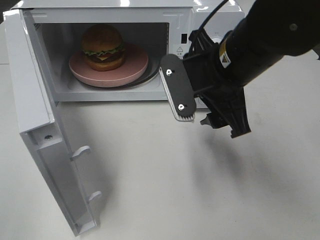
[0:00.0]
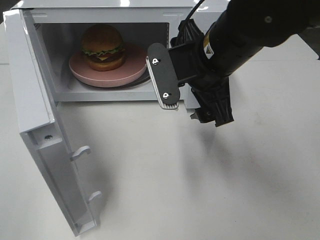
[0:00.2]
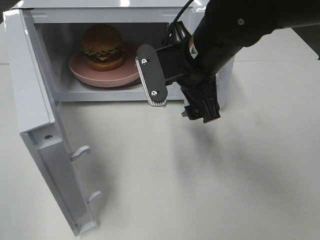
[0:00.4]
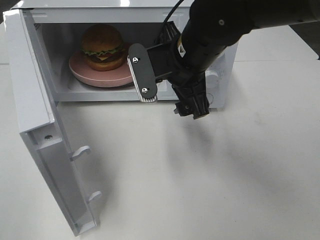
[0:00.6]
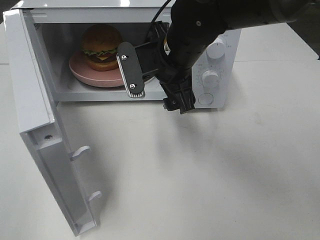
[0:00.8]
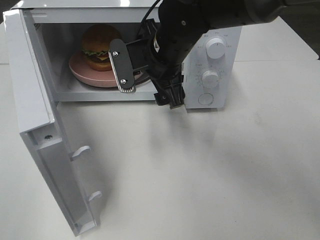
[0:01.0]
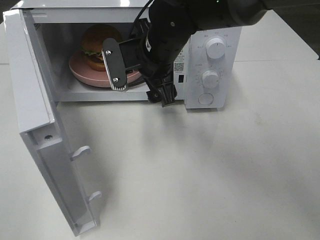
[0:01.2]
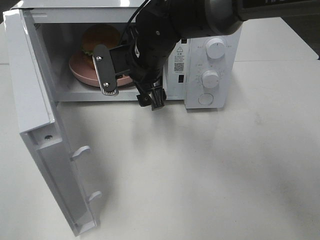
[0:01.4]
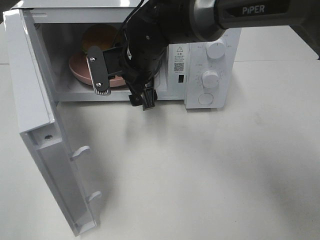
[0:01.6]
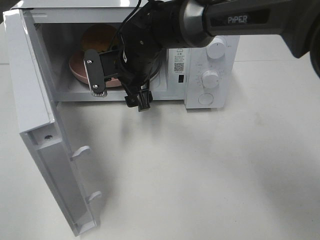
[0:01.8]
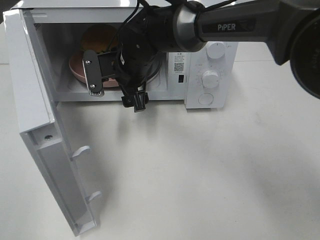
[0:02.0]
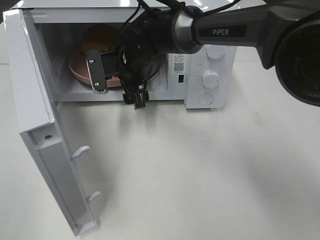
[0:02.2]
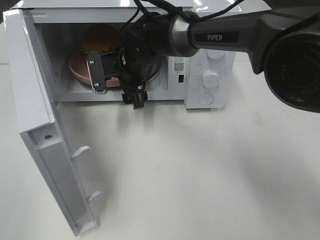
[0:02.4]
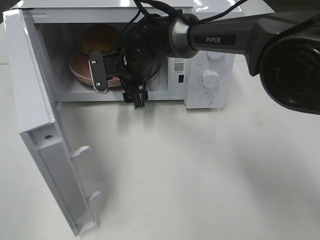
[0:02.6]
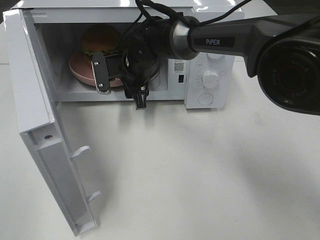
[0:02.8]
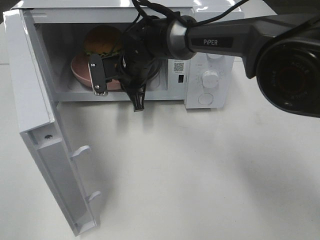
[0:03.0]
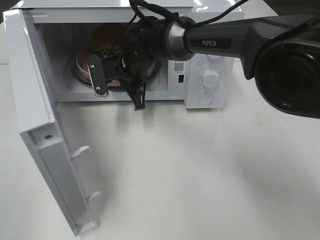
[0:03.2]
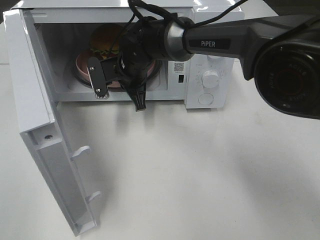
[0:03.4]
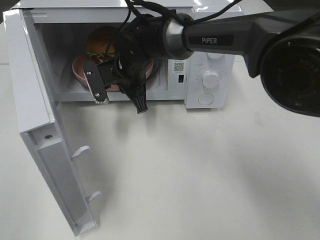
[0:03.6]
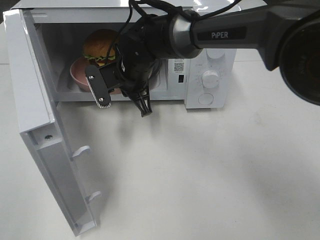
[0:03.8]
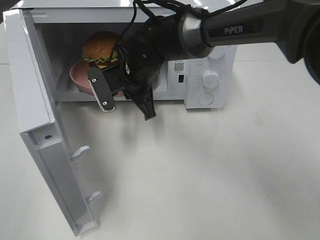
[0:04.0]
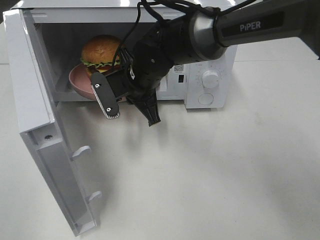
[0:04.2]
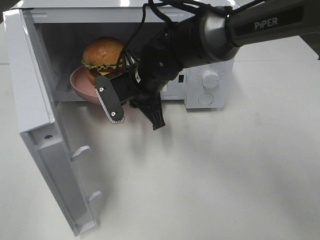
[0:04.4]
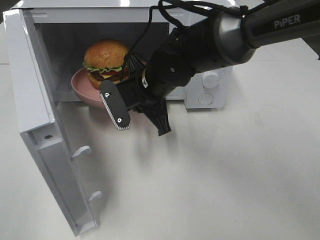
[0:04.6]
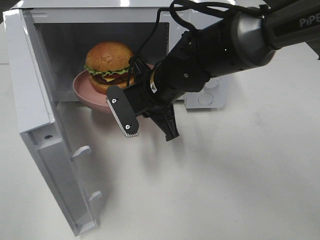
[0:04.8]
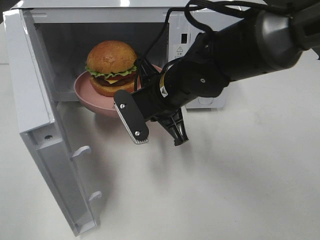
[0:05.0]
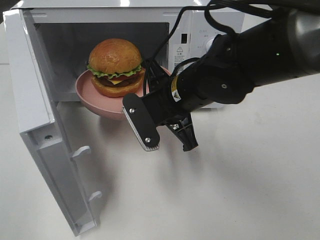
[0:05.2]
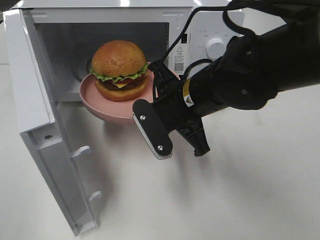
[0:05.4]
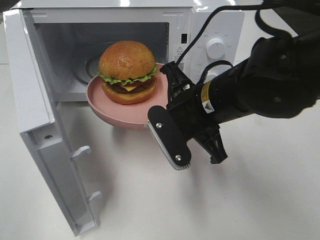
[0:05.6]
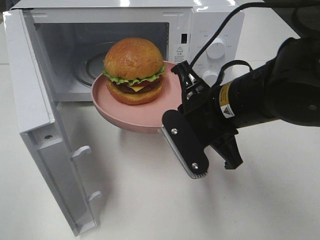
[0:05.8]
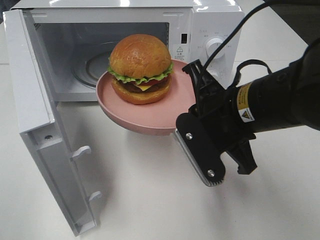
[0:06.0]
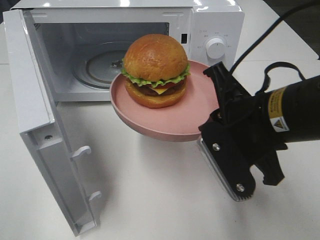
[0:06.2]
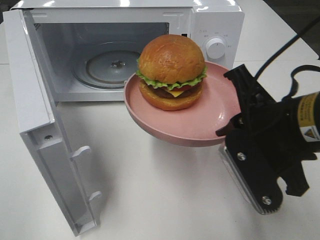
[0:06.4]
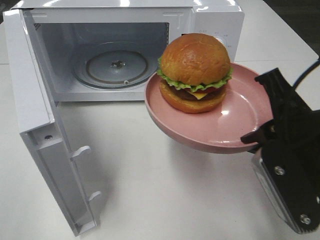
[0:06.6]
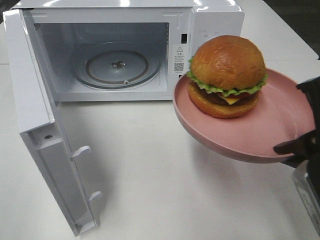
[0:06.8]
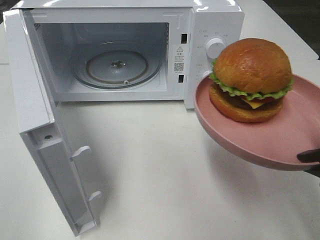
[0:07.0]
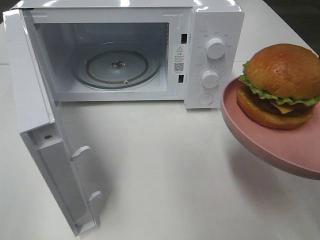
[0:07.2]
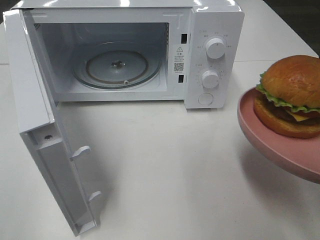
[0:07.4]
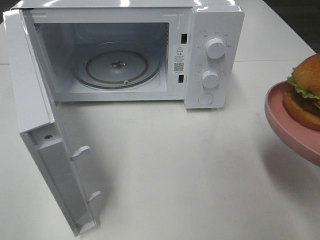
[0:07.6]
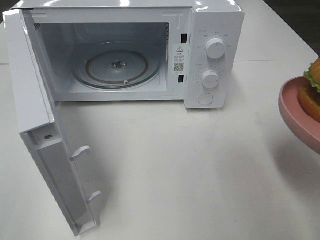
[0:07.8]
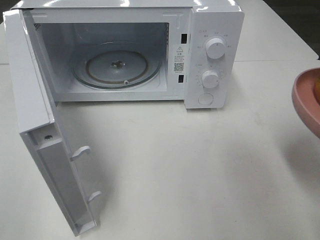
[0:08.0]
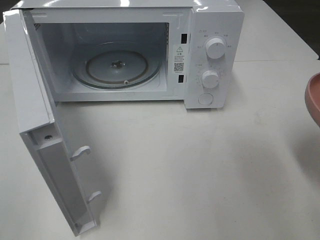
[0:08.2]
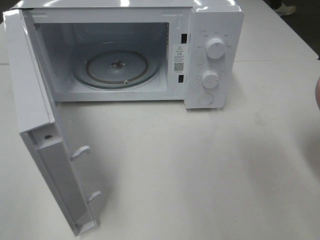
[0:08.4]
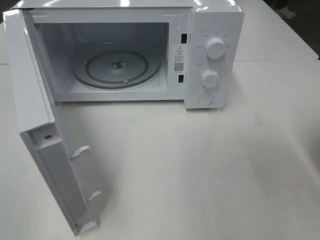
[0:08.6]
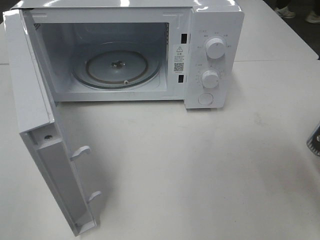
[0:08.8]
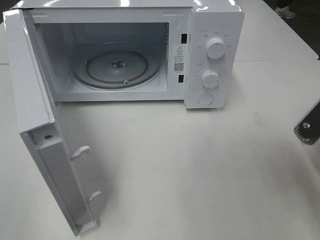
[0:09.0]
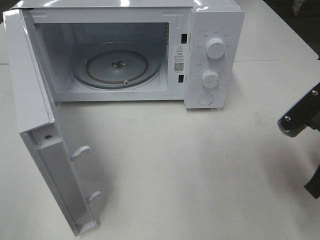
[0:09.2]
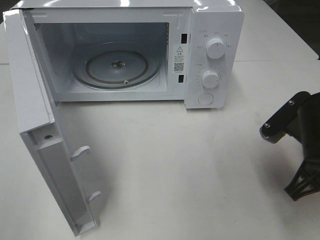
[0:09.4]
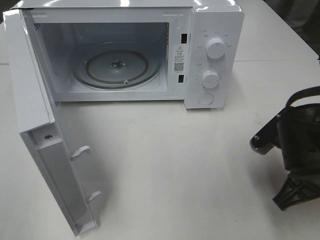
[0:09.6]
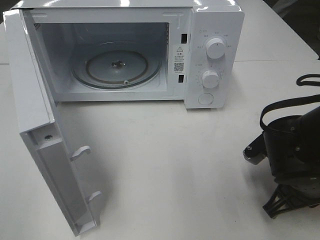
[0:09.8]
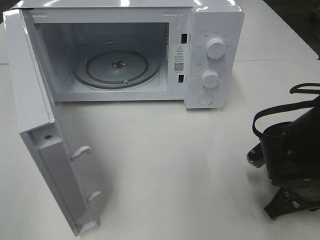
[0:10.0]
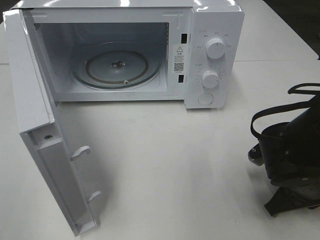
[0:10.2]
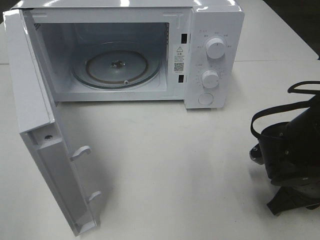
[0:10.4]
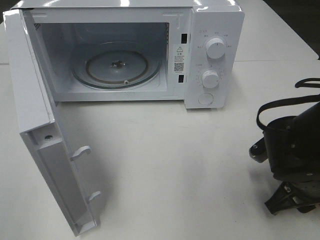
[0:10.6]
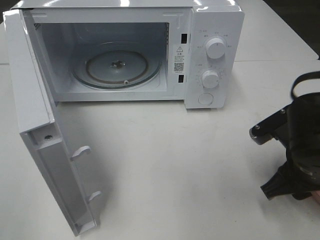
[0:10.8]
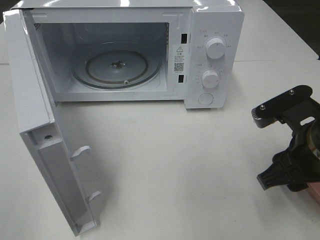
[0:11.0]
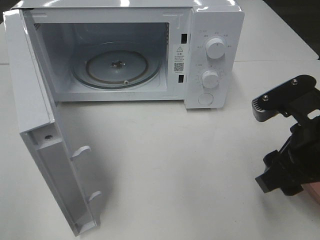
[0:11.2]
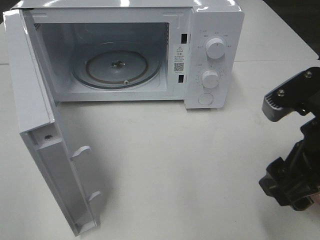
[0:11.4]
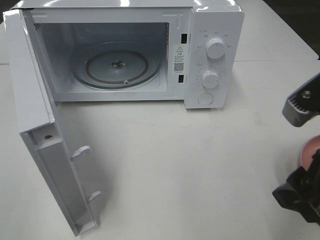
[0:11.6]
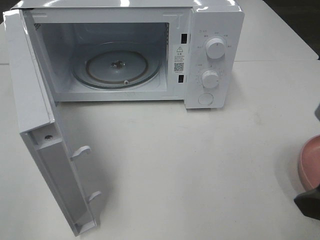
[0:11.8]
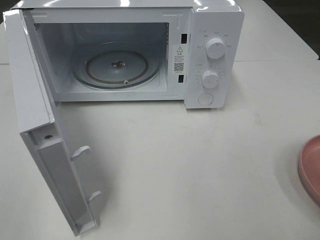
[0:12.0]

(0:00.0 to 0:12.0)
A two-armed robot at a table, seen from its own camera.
Task of the whole recording: Heat the burger.
Step, 0:00.0 - 0:03.0: Right hand: grab the plate with the hamburger.
Step, 0:03.2 - 0:10.6: Right hand: place the plate on the table.
0:00.0 - 0:01.6: The right gripper moves forward, to the left and downward, approximately 20 cm.
0:01.6 - 0:03.0: The right gripper shifts by about 5 cm, and closes its fingers.
0:03.0 - 0:04.4: The right gripper shifts about 5 cm backward.
0:04.4 - 0:06.0: The right gripper goes about 20 cm backward and to the right.
0:06.0 - 0:07.6: The right gripper moves to the right and backward, approximately 20 cm.
0:07.6 - 0:09.0: The right gripper shifts roughly 5 cm forward.
0:09.0 - 0:10.4: The right gripper heads downward, covering about 10 cm.
0:10.4 - 0:12.0: The right gripper moves upward and backward, about 20 cm, and opens up.

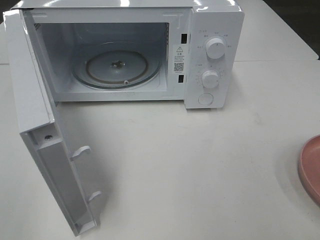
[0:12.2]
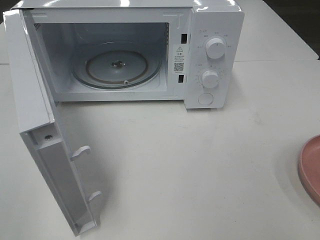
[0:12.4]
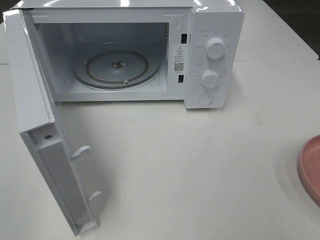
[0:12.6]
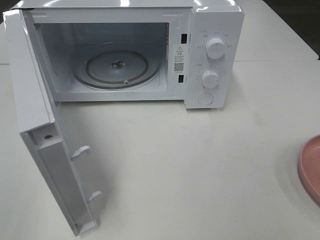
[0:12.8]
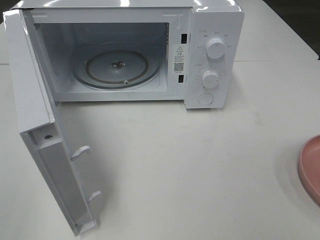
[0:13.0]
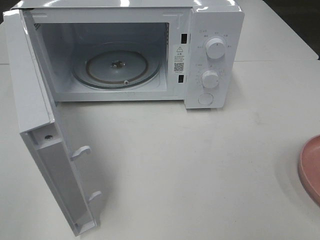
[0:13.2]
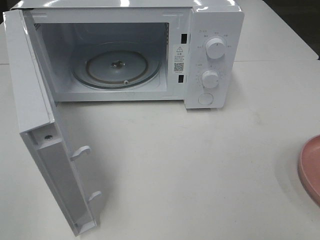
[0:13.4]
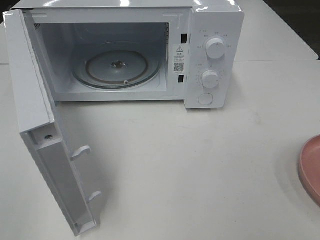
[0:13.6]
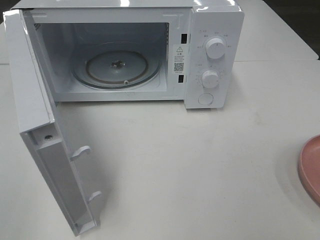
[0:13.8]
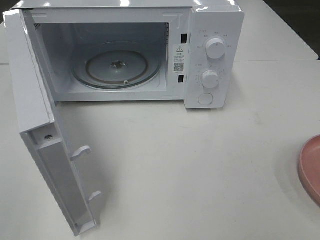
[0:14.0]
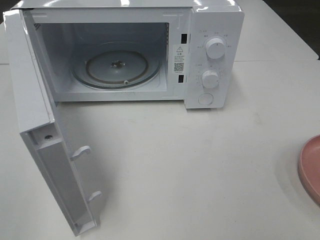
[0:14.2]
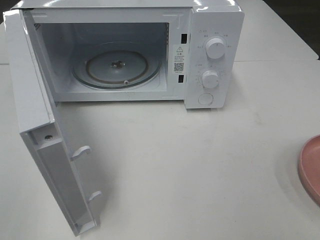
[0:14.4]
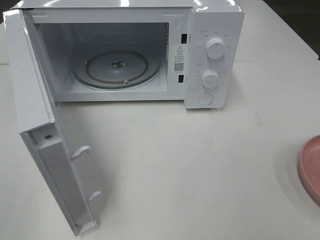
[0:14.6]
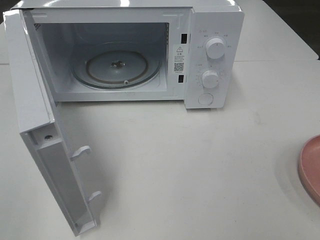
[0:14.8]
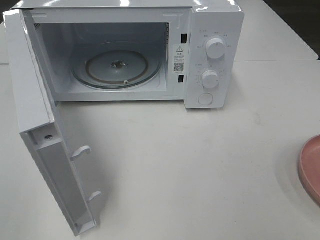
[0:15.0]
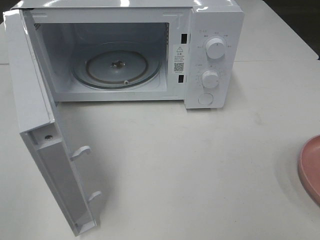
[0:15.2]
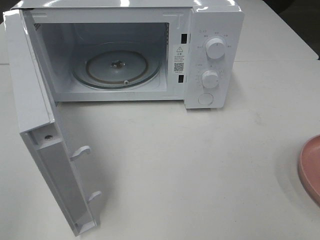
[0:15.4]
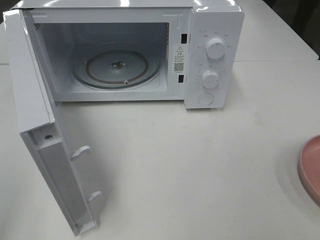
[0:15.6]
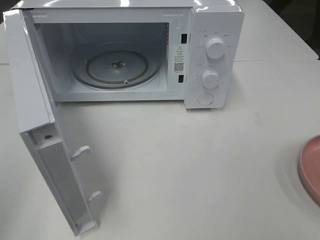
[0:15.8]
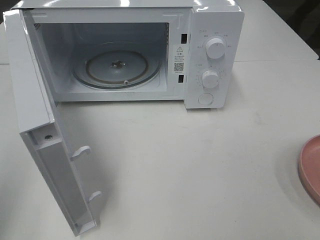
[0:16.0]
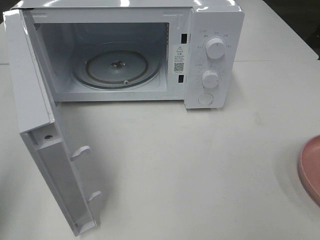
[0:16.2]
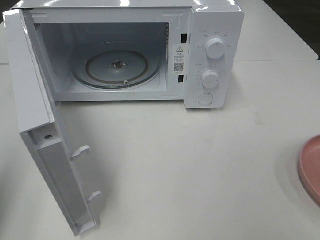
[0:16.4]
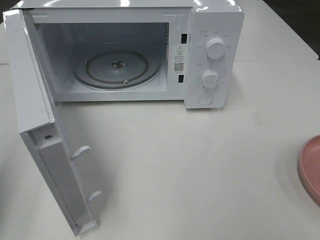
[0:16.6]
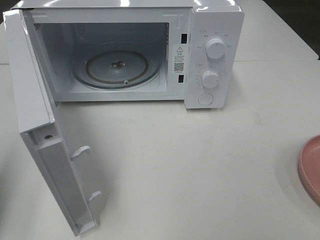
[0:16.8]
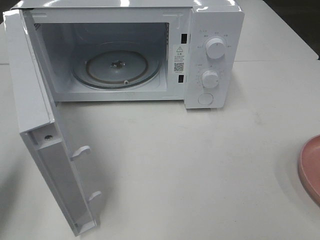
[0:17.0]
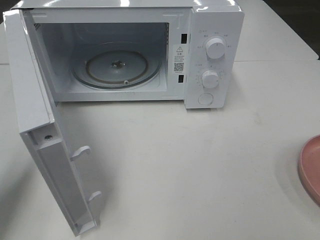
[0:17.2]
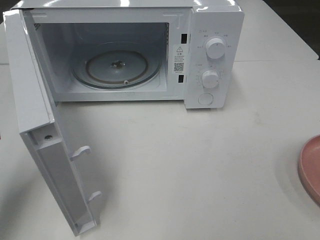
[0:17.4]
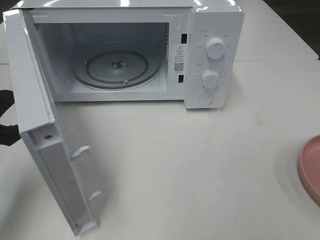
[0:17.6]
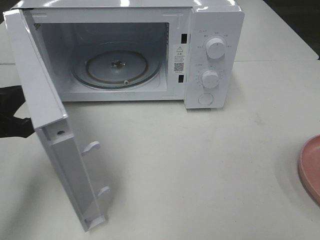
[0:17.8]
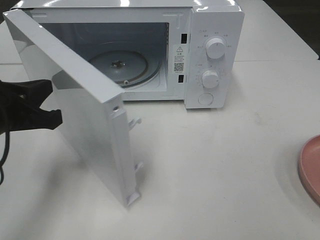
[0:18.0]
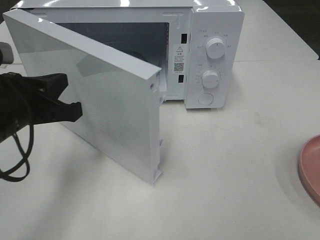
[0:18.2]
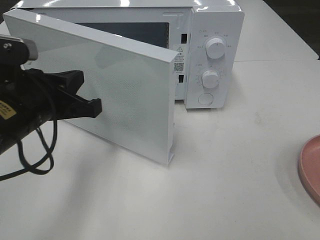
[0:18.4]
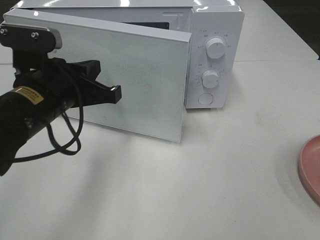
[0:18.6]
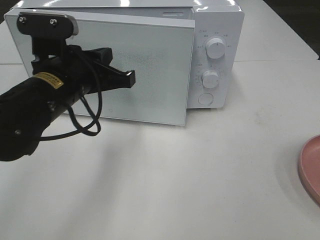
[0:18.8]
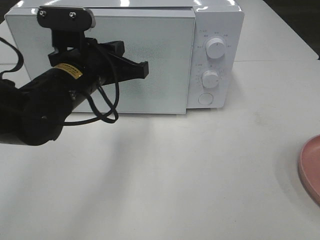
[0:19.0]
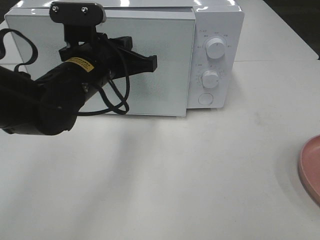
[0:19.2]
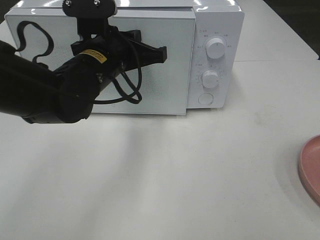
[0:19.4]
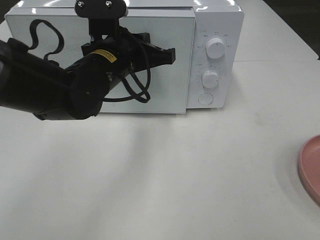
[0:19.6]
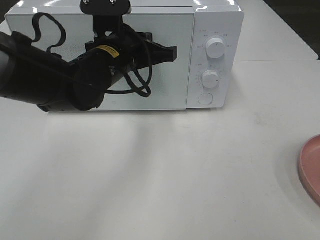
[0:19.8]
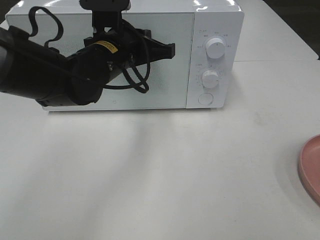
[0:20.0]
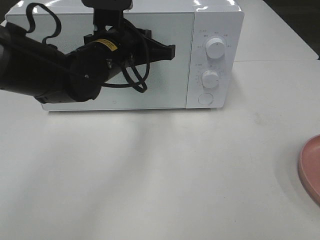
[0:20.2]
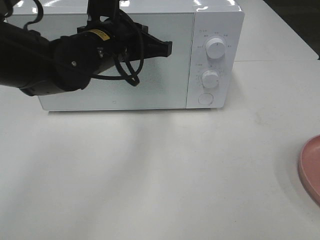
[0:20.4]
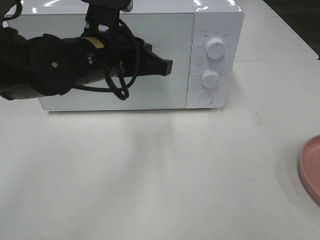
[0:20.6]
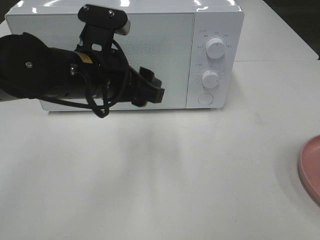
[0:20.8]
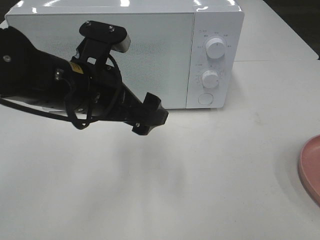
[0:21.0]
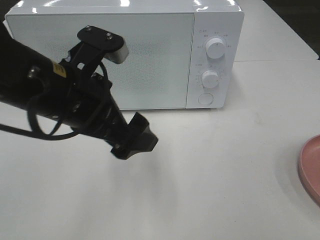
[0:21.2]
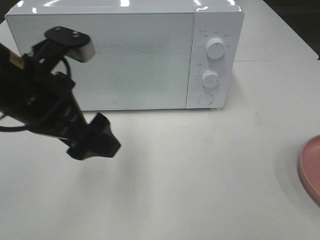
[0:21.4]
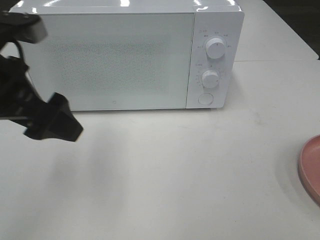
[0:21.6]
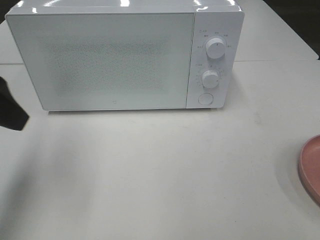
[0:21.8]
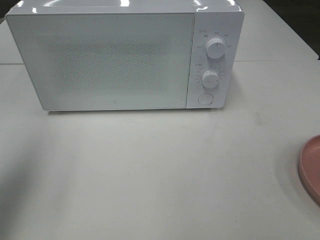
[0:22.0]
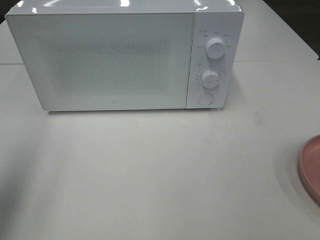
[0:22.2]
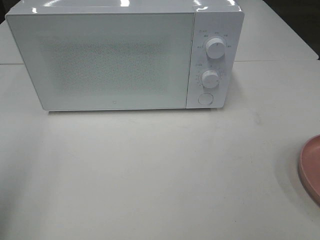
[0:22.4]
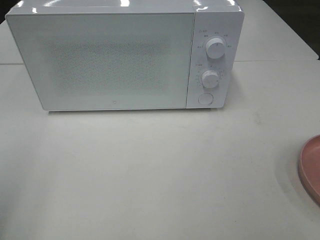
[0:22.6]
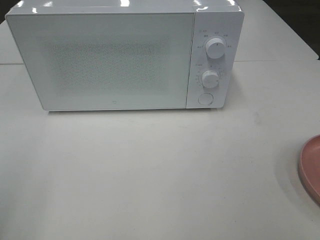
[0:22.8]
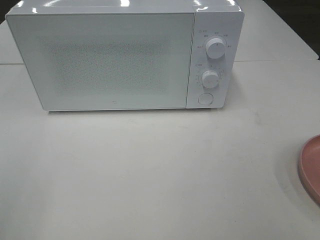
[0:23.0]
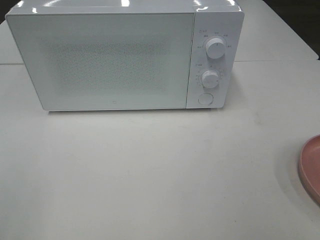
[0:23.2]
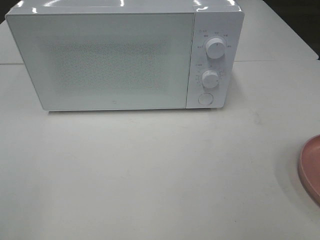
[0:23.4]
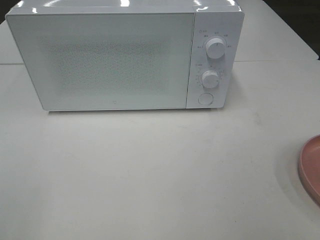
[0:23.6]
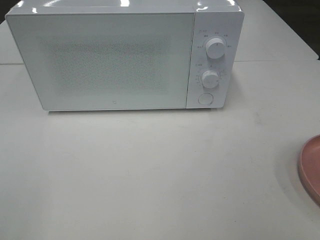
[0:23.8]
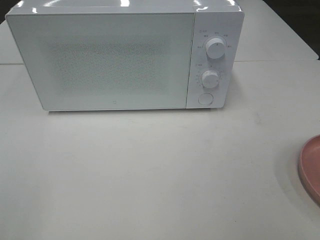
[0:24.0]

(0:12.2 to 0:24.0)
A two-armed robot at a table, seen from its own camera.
Task of the whole recording: Heat the burger.
Step, 0:12.2 - 0:20.4: Left hand: close the microwave door.
0:13.6 - 0:15.2: Both grippers stay about where they are.
0:15.2 - 0:16.6: The left gripper is displaced forward by approximately 15 cm, and closes its fingers.
0:16.6 - 0:18.2: The left gripper shifts some 15 cm to the right and forward.
0:18.2 - 0:19.6: The left gripper heads to the right and forward, covering about 15 cm.
0:19.6 - 0:21.0: The left gripper shifts approximately 10 cm backward, and opens.
0:21.0 - 0:22.6: The left gripper moves to the left and backward, about 30 cm.
